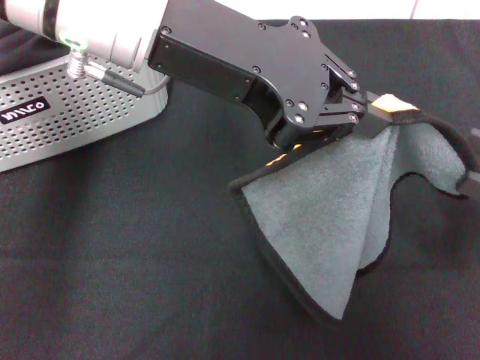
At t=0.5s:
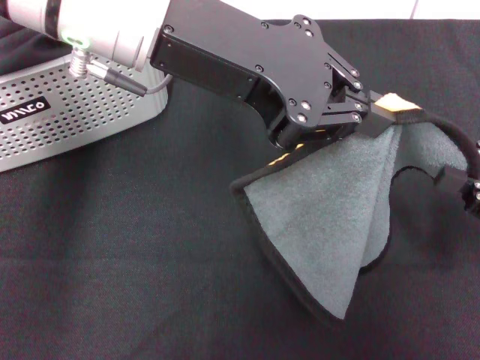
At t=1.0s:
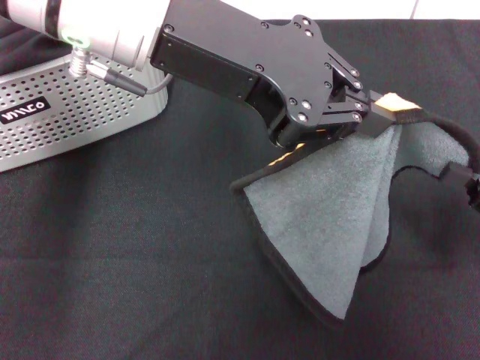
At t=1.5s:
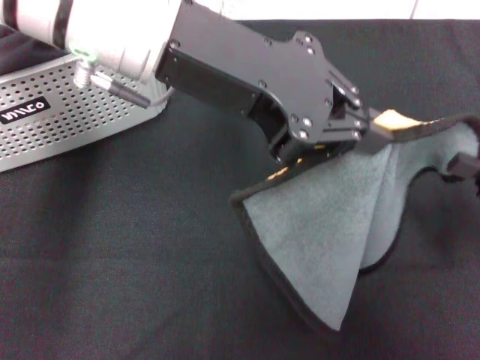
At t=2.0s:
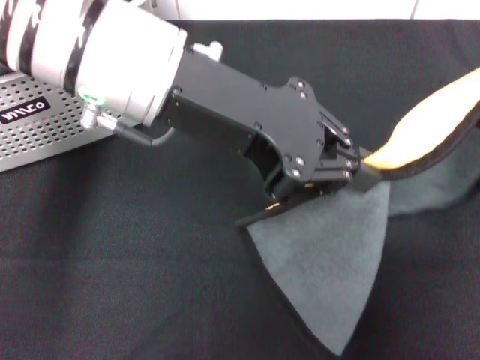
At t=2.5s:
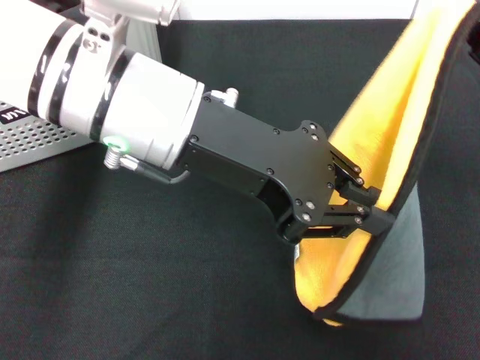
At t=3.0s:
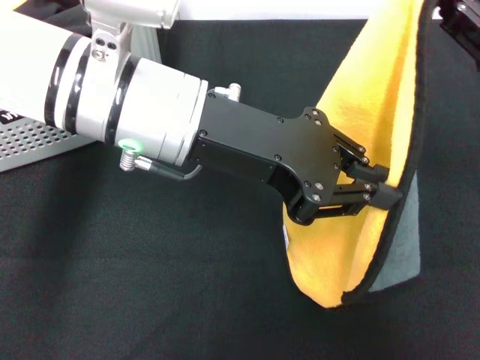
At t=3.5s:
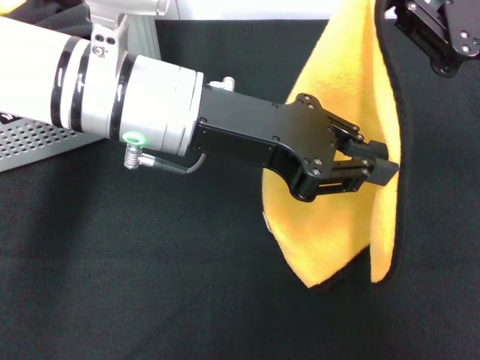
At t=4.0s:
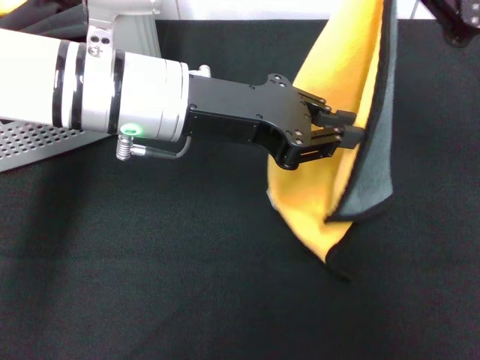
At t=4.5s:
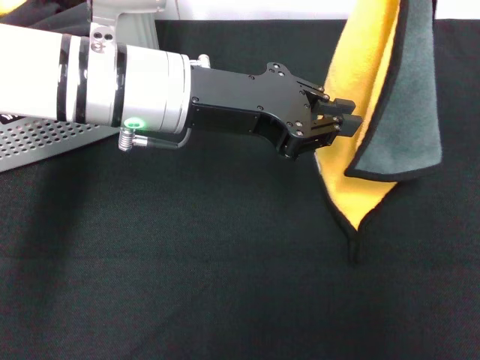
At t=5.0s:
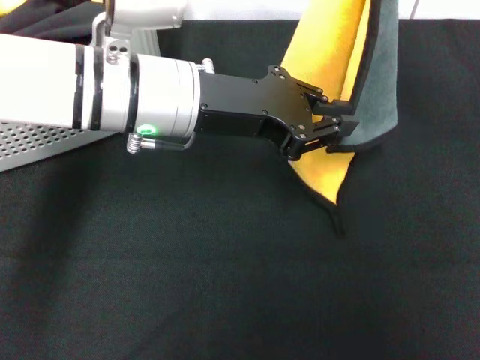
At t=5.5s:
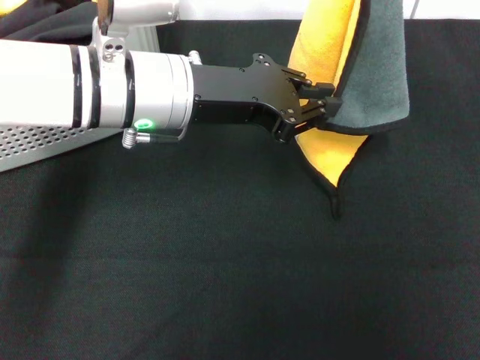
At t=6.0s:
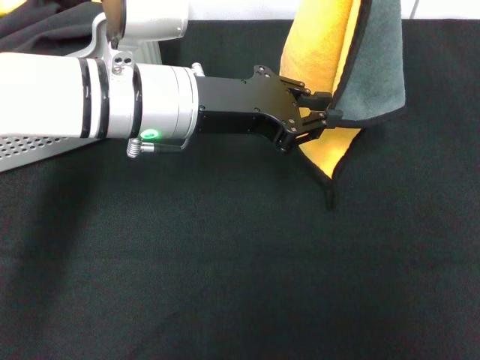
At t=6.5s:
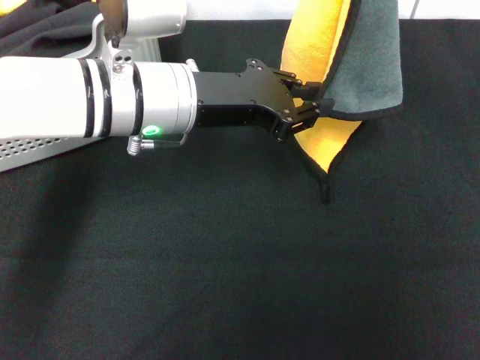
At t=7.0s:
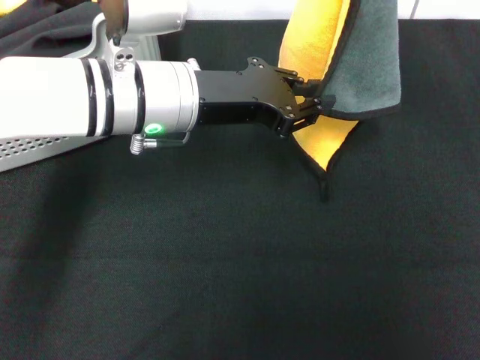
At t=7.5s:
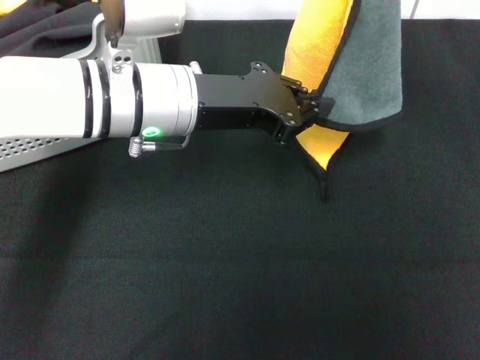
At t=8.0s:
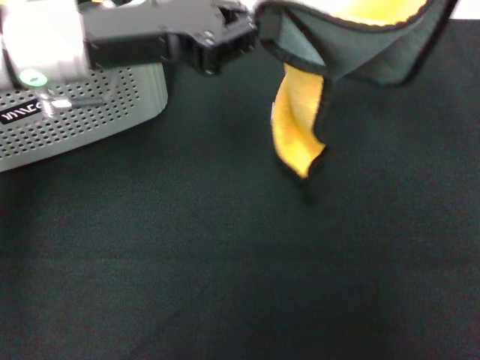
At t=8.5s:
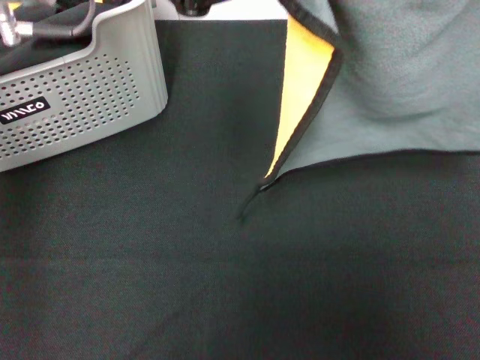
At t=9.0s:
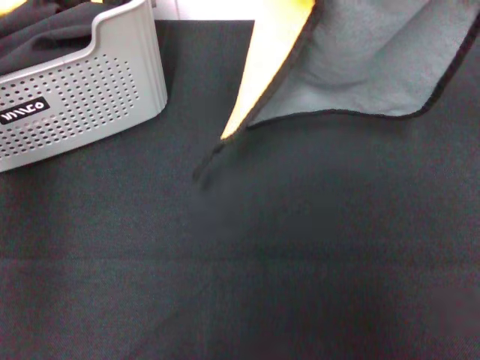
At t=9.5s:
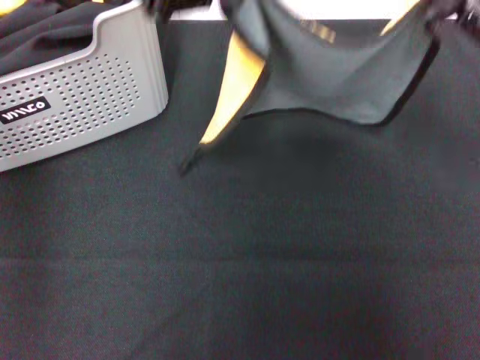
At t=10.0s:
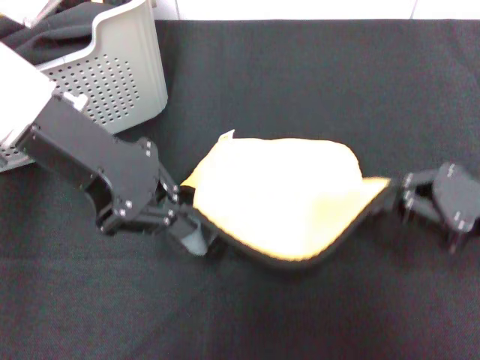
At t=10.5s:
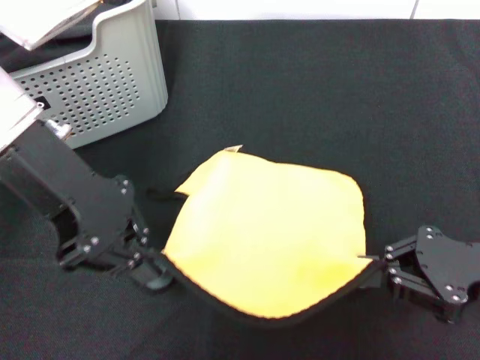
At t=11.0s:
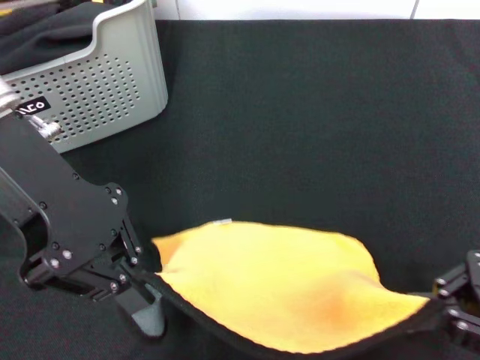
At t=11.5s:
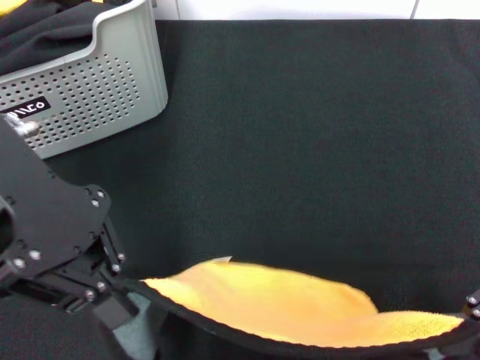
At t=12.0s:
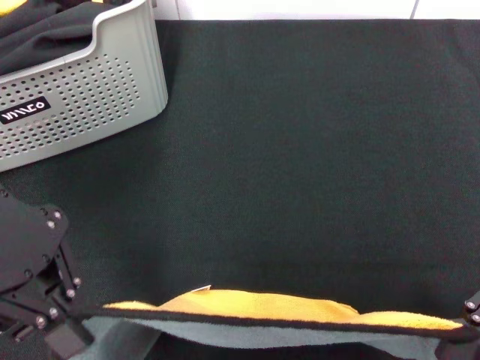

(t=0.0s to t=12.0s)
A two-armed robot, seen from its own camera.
Task of the whole recording: pick up the towel from the storage box and lay it flat on the black tablecloth.
t=0.0s - t=2.0s: The right gripper closes.
t=2.0s - t=4.0s: The right gripper moves to the left, forward and upward, roughly 10 cm, while the left gripper shifts about 5 cm downward.
t=4.0s - t=6.0s: The right gripper goes approximately 5 cm upward.
t=6.0s - t=8.0s: The left gripper goes some 5 cm to the left; the right gripper heads to the right, covering some 5 cm.
t=8.0s - t=10.0s: The right gripper goes approximately 15 cm downward. The left gripper travels upward and back again, about 10 cm each way.
t=10.0s - t=12.0s: The right gripper shifts some 5 cm backward; the left gripper moves upward, approximately 5 cm.

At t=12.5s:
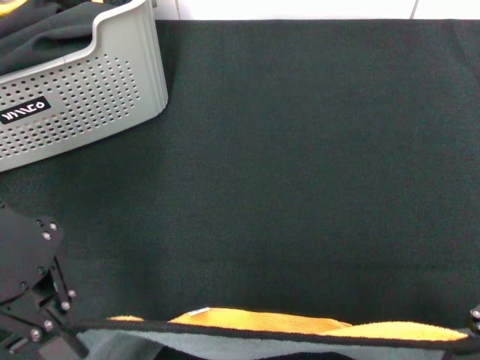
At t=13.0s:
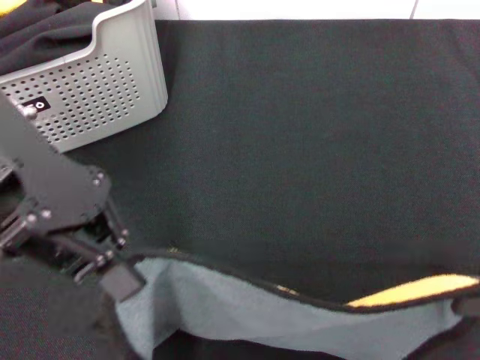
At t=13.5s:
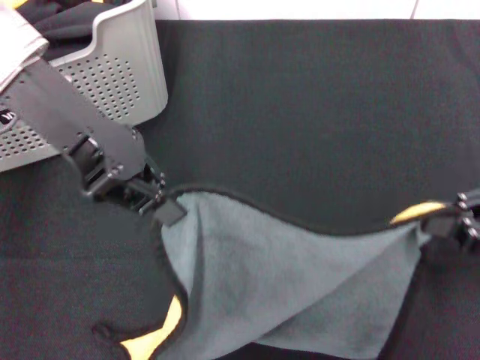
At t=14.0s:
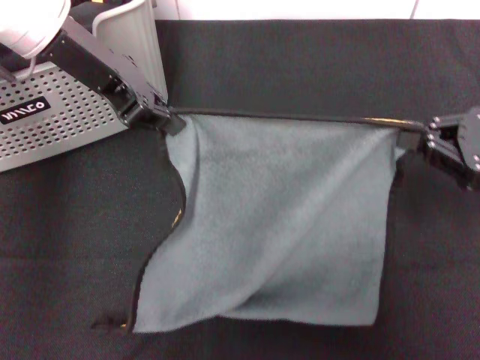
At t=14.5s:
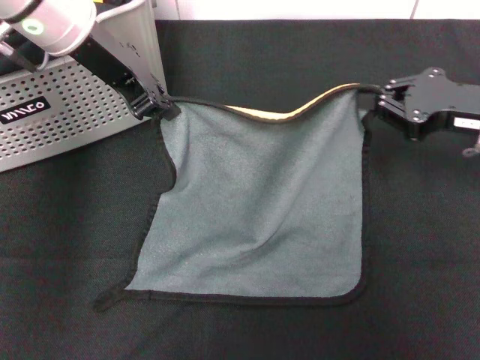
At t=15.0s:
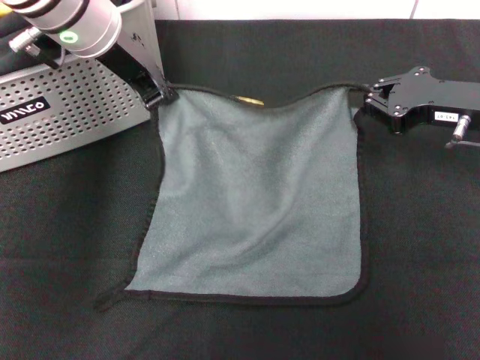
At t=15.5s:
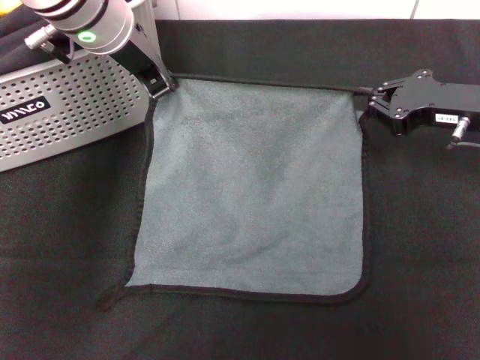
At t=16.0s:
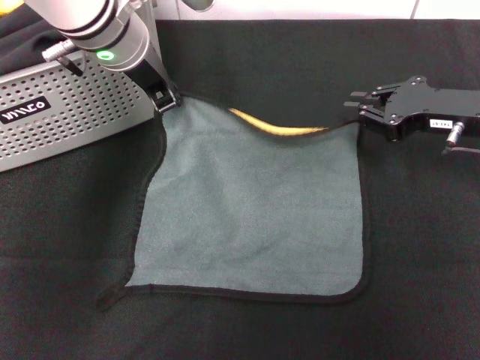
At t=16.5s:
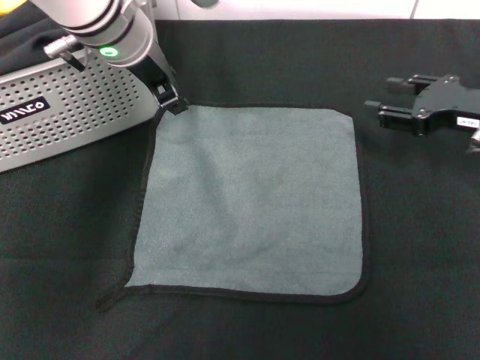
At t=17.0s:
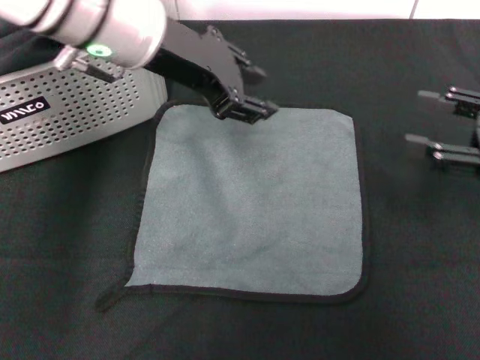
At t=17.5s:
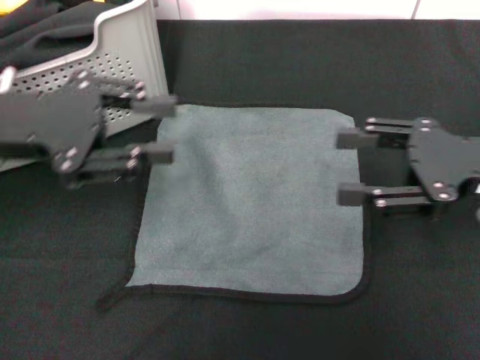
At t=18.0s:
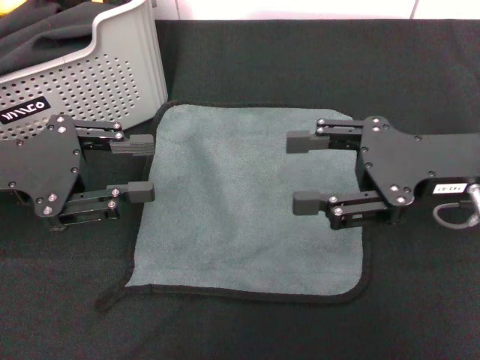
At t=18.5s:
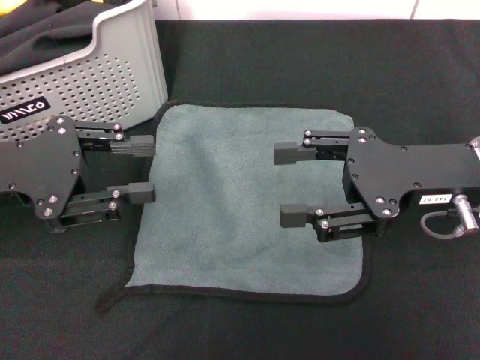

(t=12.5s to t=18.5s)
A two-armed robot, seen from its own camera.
Task of the whole recording: pick up the towel from the storage box and lay it flat on the black tablecloth.
Step, t=12.5s - t=16.5s: Spread the towel flat with the right gripper.
t=12.5s - t=14.5s: The right gripper travels forward by some 15 cm. The left gripper travels forward and downward by about 15 cm.
t=14.5s - t=16.5s: The left gripper moves to the right, some 5 cm, and opens, while the right gripper opens up.
t=16.5s - t=18.5s: The left gripper heads to the left and backward, covering some 20 cm, while the right gripper moves to the left and backward, approximately 10 cm.
